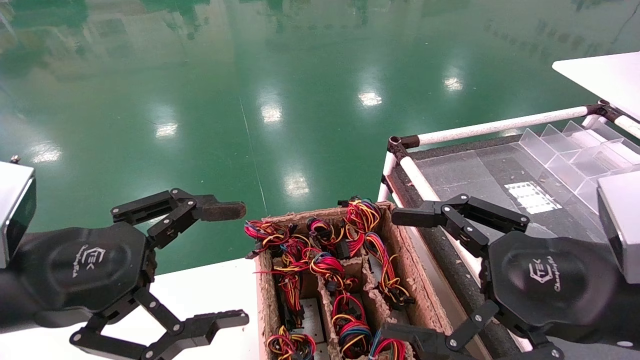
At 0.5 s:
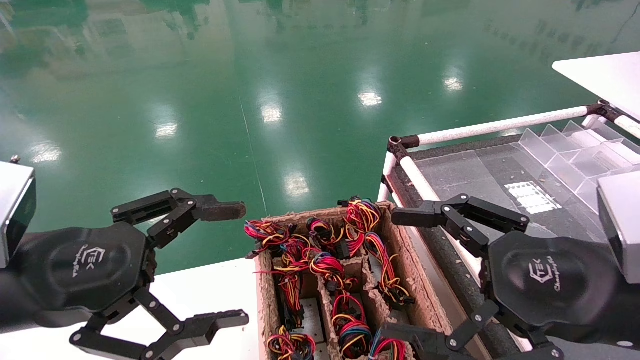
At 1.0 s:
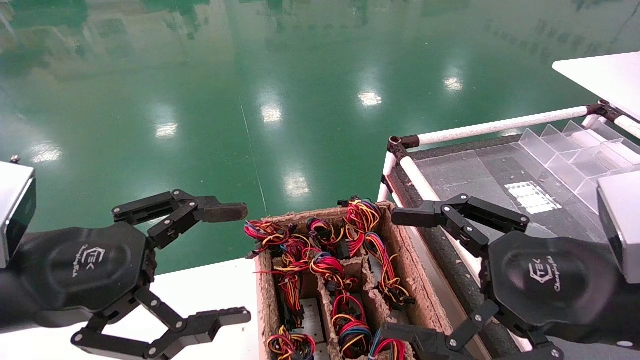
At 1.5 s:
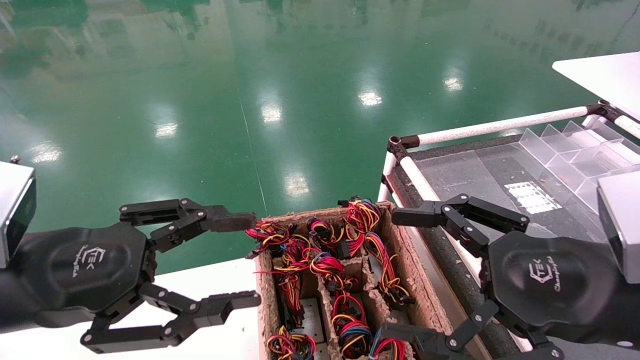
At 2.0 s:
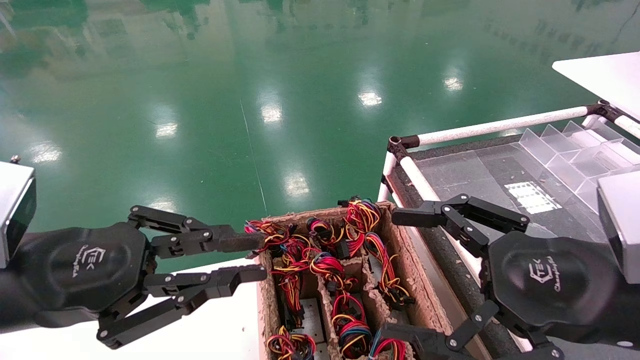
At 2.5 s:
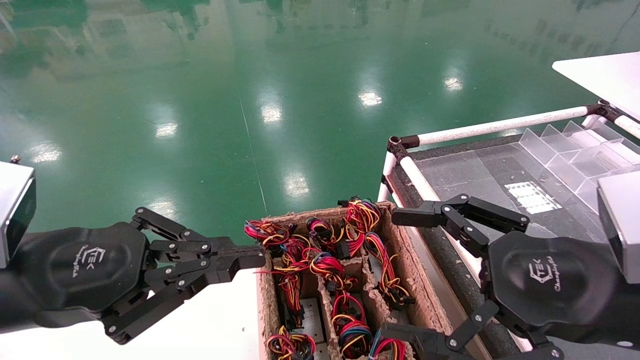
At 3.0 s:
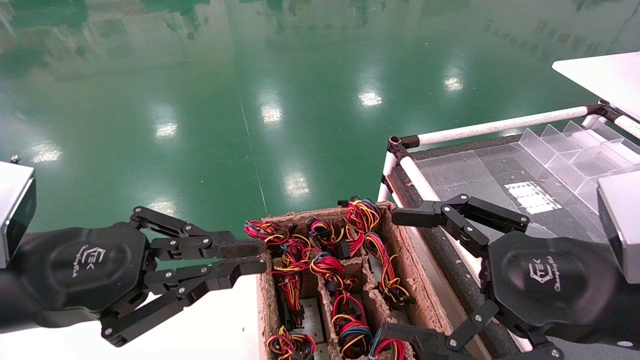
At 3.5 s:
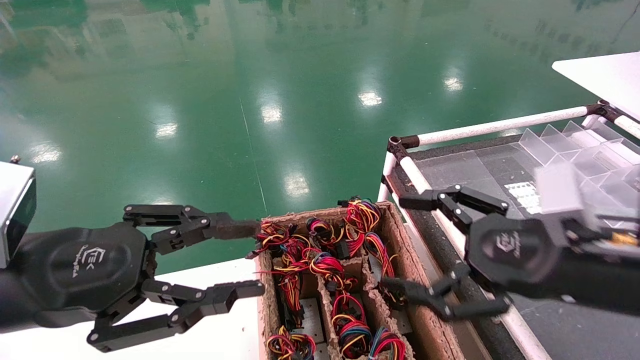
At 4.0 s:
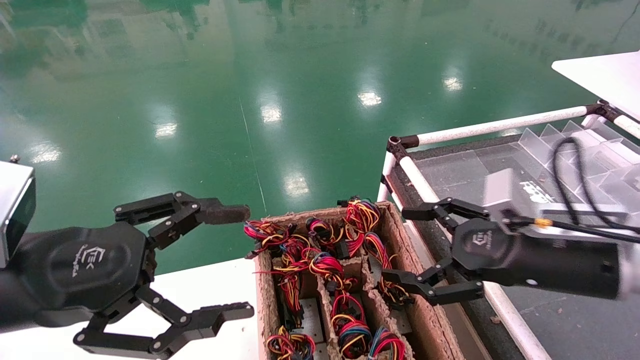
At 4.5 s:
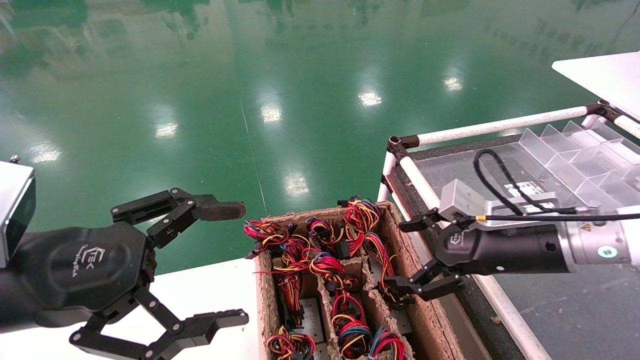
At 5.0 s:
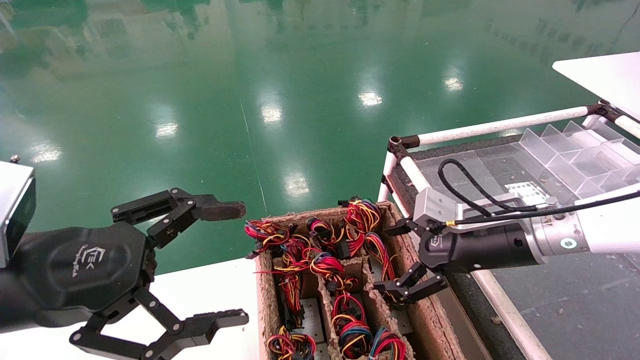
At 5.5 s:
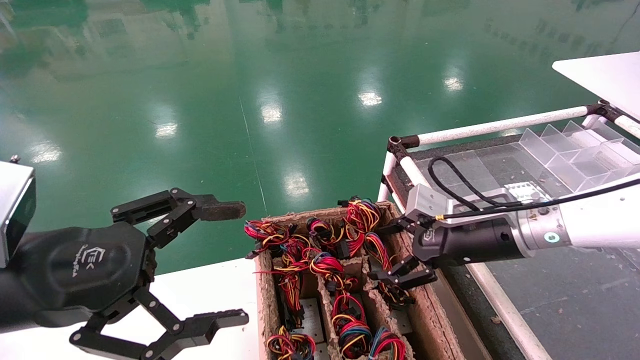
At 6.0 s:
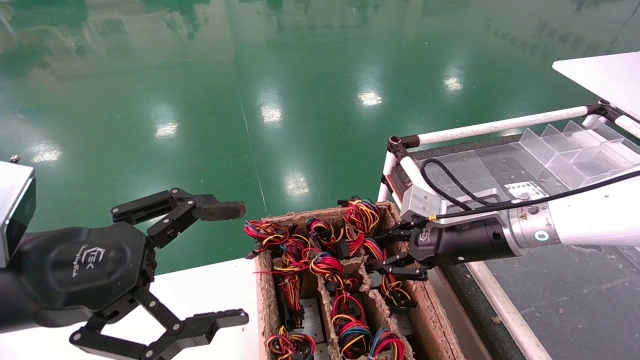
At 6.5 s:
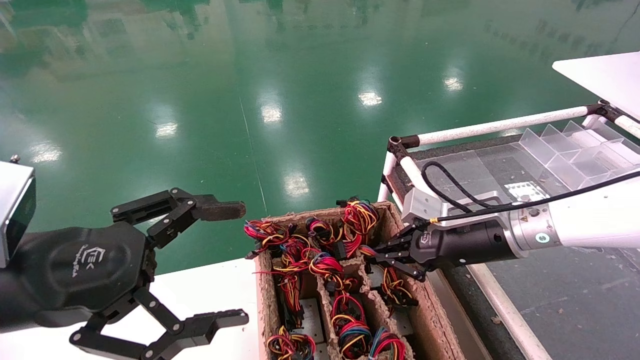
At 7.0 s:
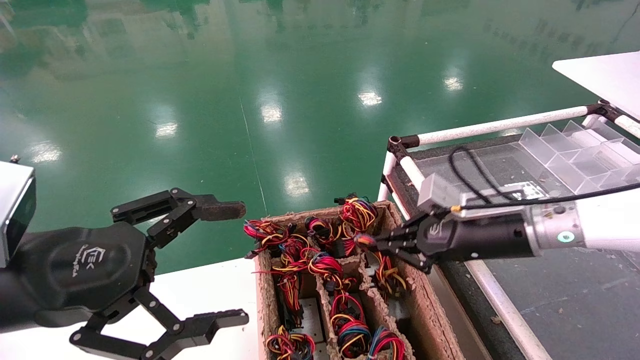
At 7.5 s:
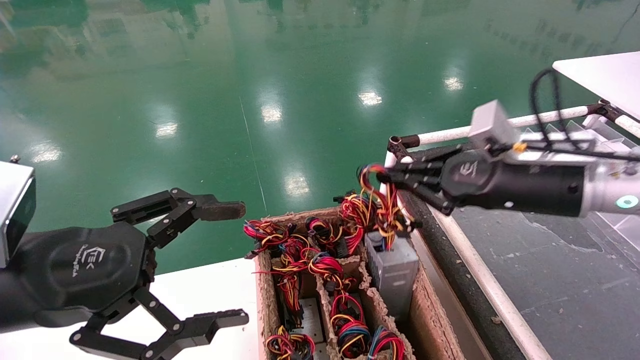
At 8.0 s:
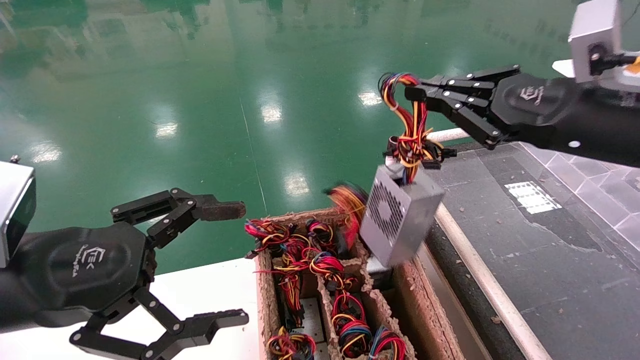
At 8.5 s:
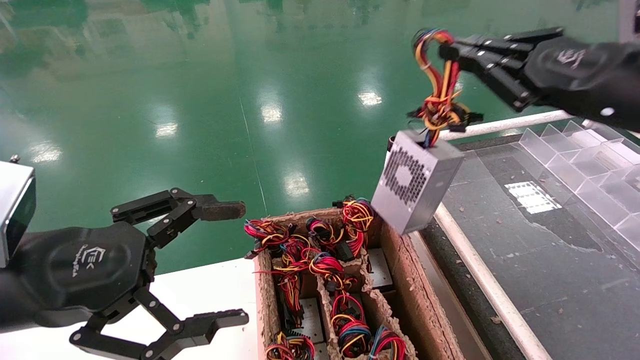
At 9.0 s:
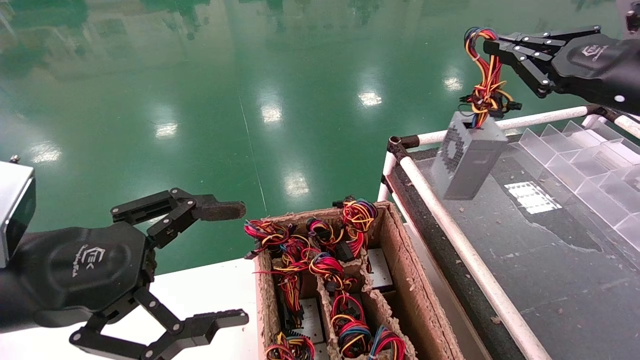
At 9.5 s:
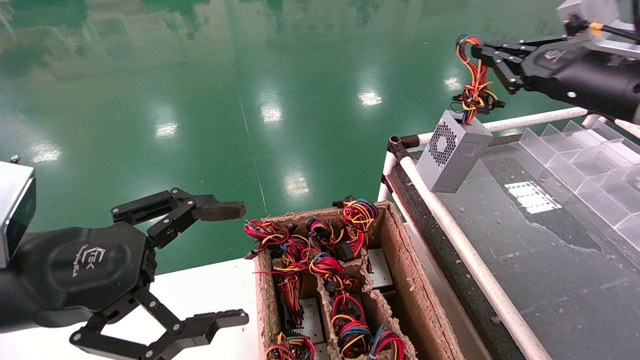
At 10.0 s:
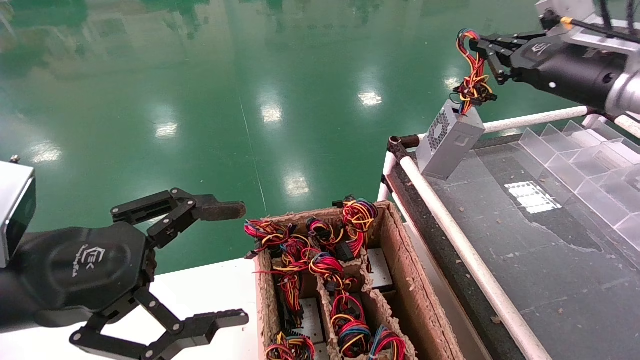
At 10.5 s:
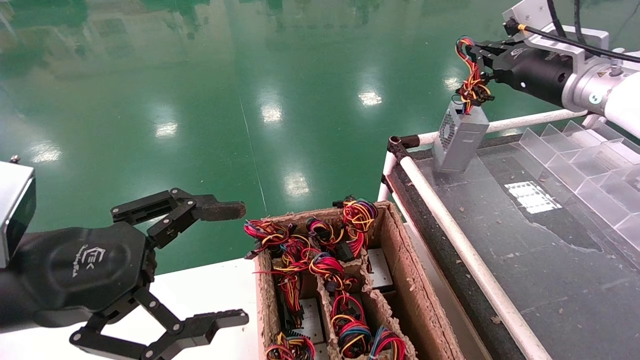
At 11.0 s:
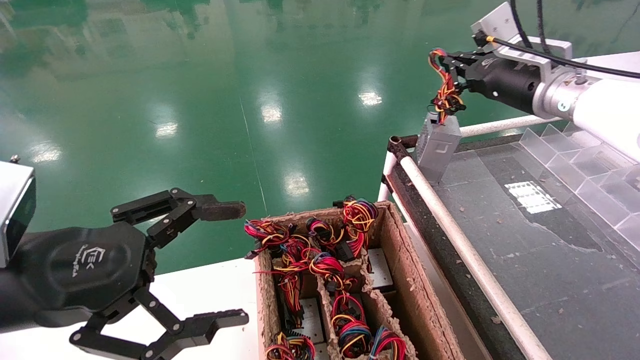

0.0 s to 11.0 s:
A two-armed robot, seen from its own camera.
Step, 2.5 to 6.5 s: Grab and lift the power supply from the large box.
0.0 to 2.0 s: The left gripper closes its fingers.
2.0 to 3.5 s: The grippers move only a little.
3.5 to 5.5 s: The right gripper shifts about 15 cm forward, while the left gripper opens up.
5.5 to 7.5 s: The right gripper moves upward, about 10 cm, and closes its fingers.
7.5 to 9.0 s: The right gripper is displaced upward and to the right by approximately 15 cm.
9.0 to 11.0 s: The right gripper moves forward and to the left, about 15 cm.

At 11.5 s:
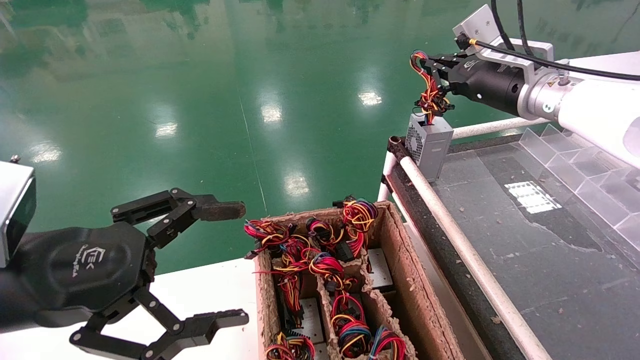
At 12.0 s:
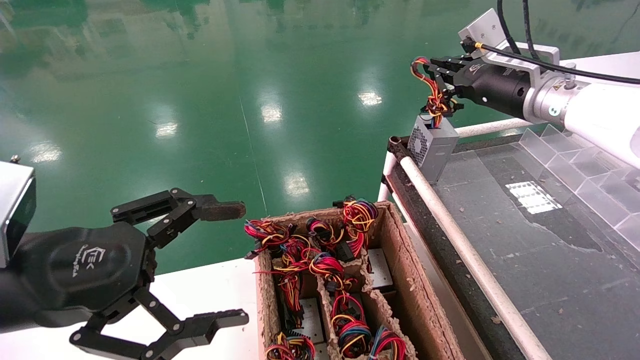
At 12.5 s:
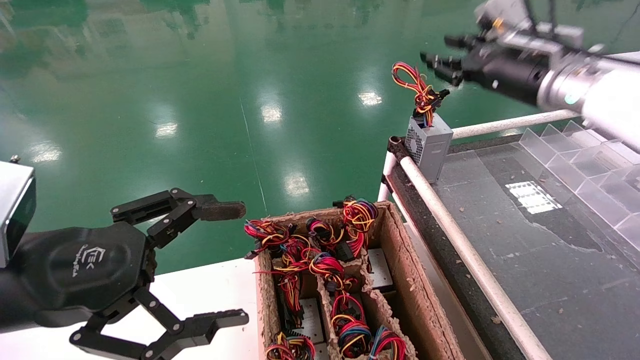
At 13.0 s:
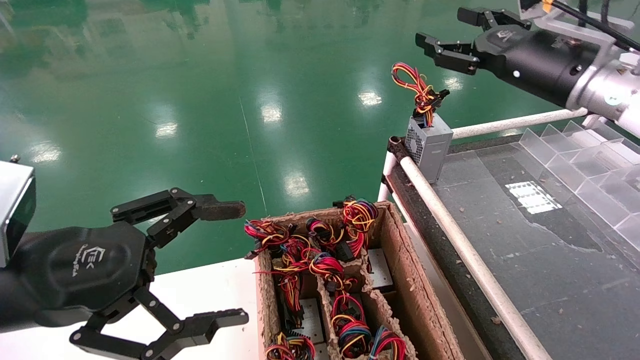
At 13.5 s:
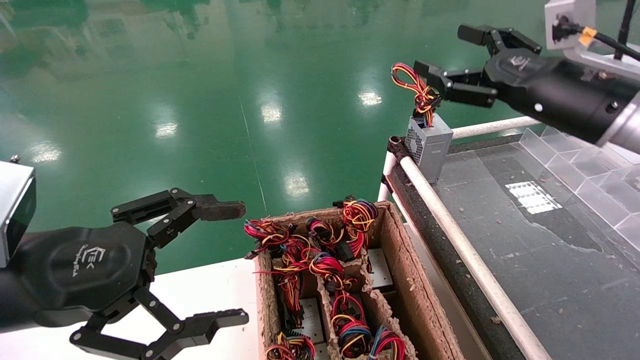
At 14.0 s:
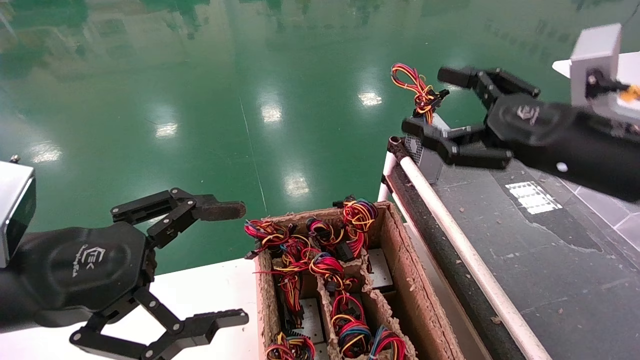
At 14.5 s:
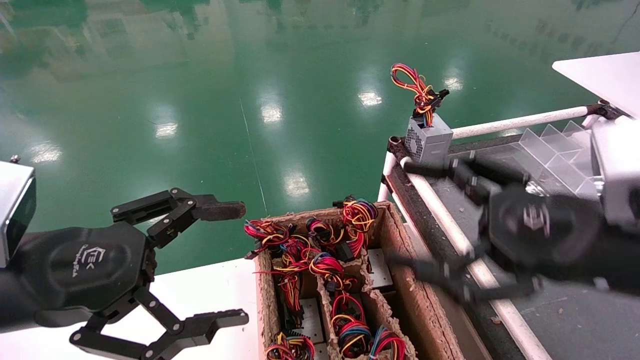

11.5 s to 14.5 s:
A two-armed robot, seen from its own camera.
11.5 to 13.0 s: The right gripper heads backward, covering some 5 cm, and opens its fingers.
13.0 to 14.5 s: The right gripper travels backward and downward by roughly 20 cm.
